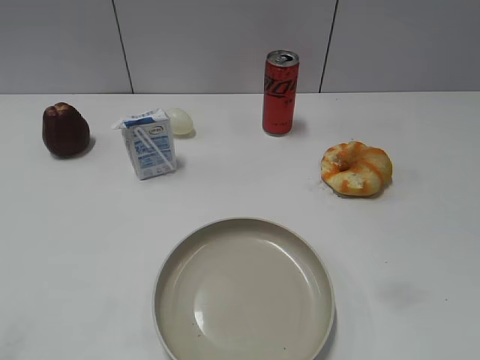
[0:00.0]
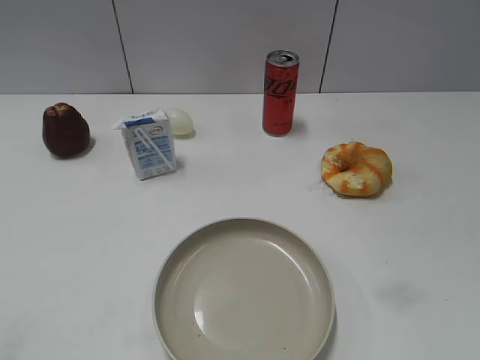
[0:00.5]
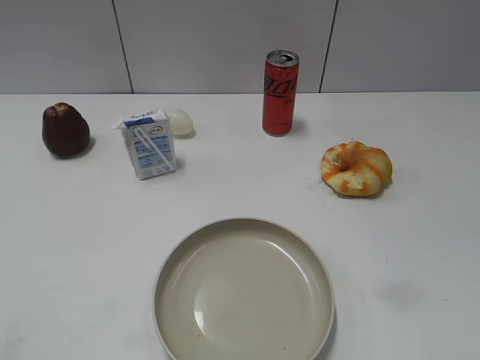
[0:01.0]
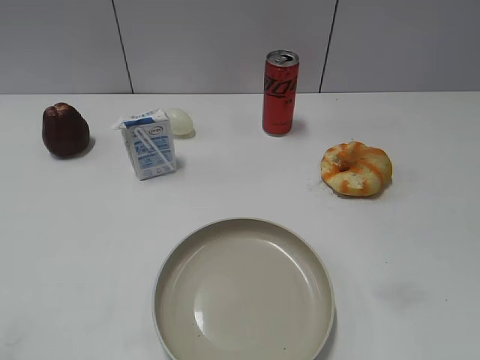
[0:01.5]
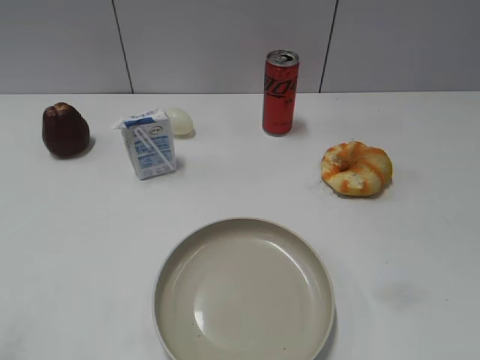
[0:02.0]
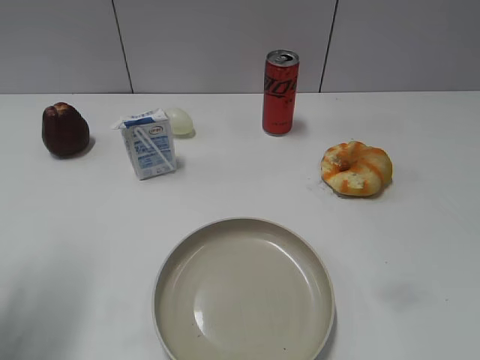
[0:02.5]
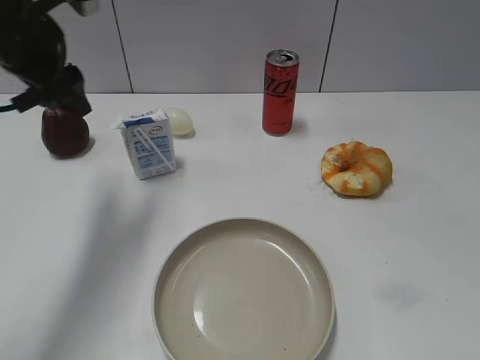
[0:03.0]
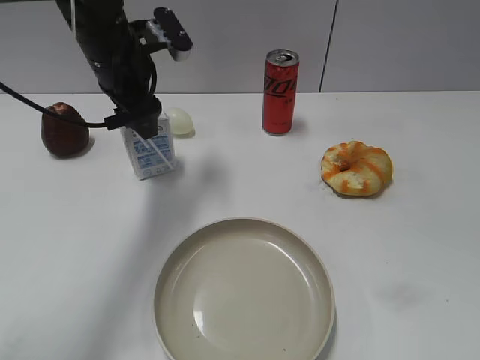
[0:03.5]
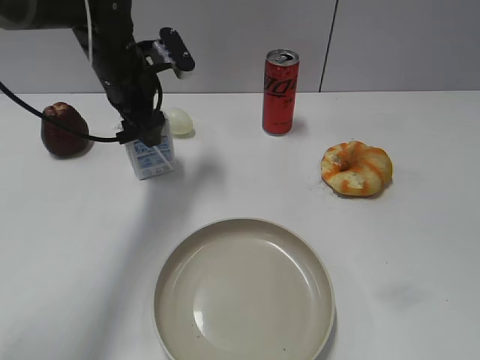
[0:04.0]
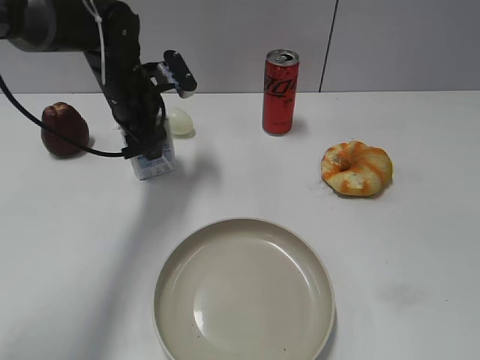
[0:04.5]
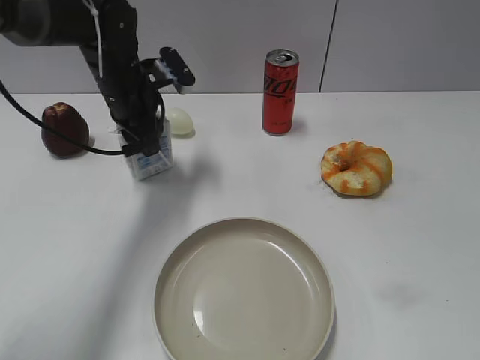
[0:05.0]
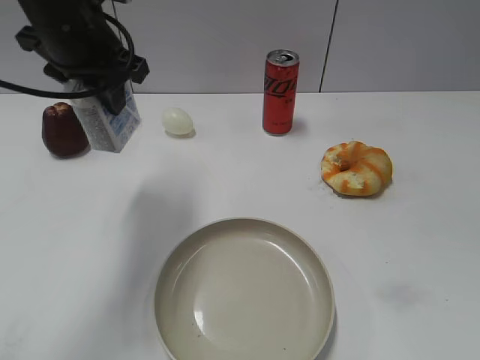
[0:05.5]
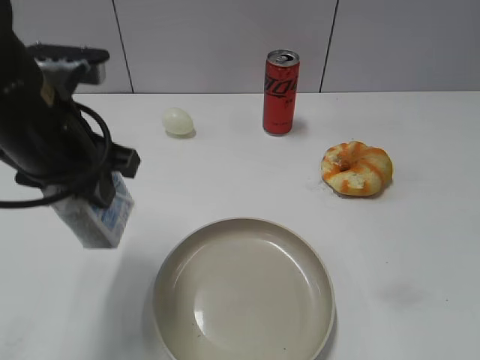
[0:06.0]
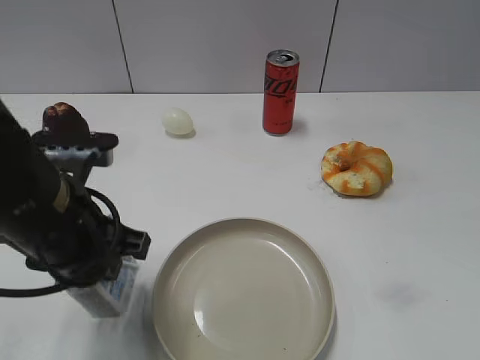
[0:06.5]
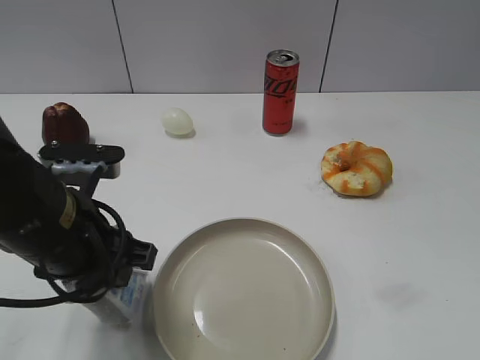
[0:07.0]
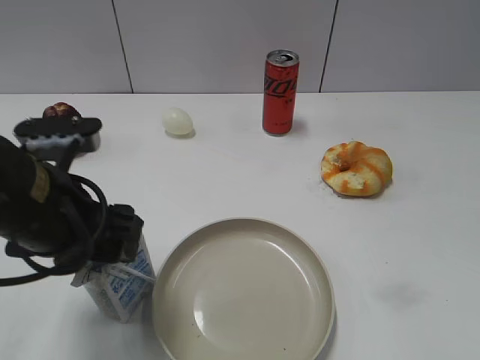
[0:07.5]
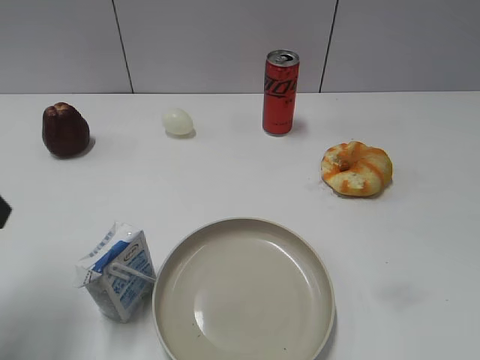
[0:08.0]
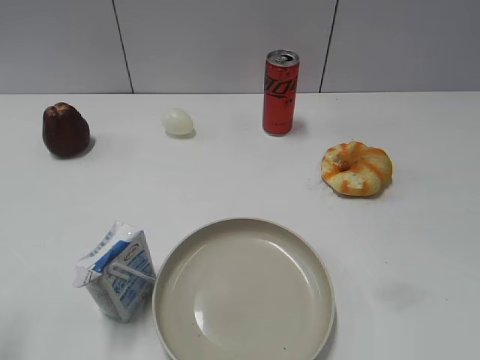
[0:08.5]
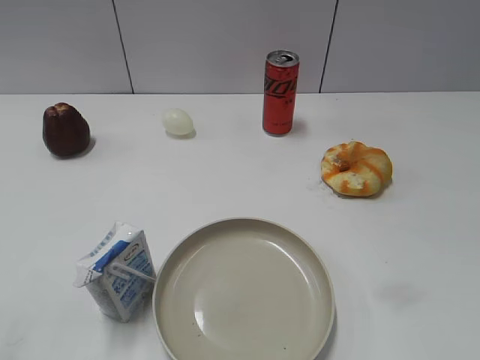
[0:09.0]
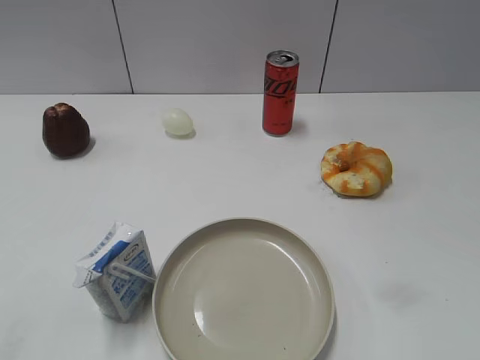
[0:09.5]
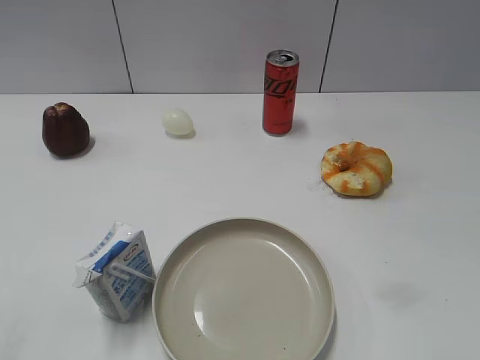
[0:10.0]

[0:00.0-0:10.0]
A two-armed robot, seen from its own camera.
Step, 0:01.0 to 0:04.5: Grasp the milk with left gripper.
Step, 0:05.0 to 0:07.0: Place the milk on the table with left gripper.
0:02.0 to 0:04.0: The left gripper is displaced forward and to the right by some 40 cm.
0:04.0 to 0:06.0: The left gripper travels backward by approximately 15 cm, and closes up.
0:06.0 to 0:08.0: The left gripper travels to the left and backward by approximately 10 cm, and opens up.
0:08.0 to 0:10.0: The left gripper goes some 20 cm backward.

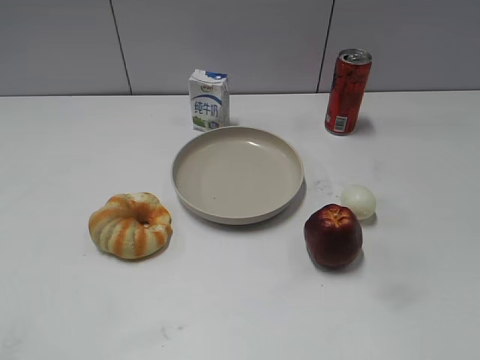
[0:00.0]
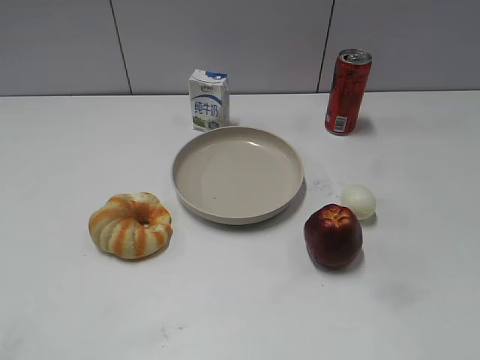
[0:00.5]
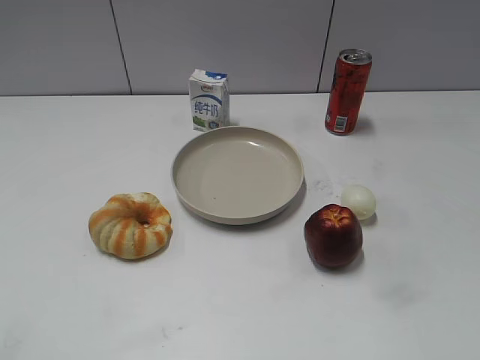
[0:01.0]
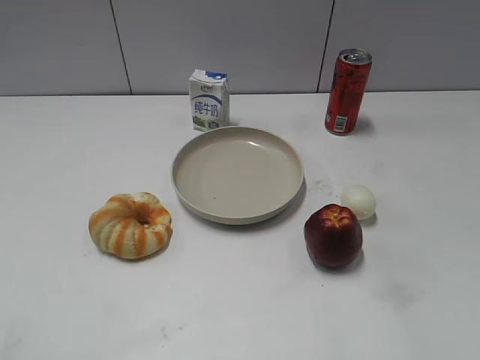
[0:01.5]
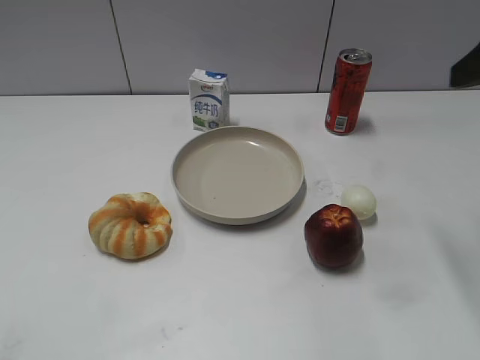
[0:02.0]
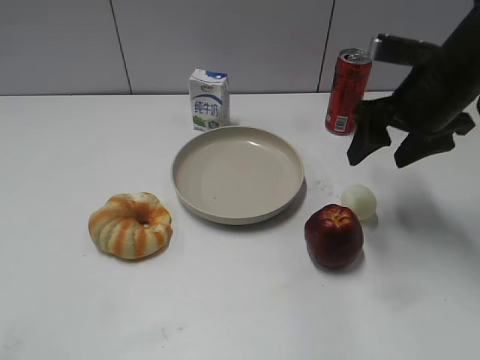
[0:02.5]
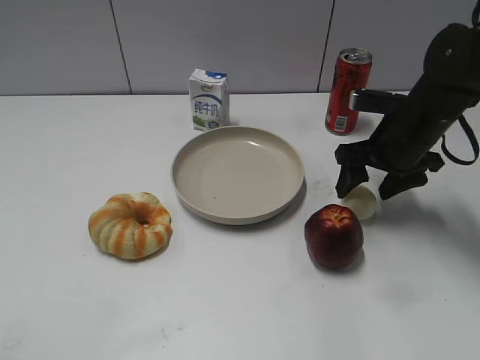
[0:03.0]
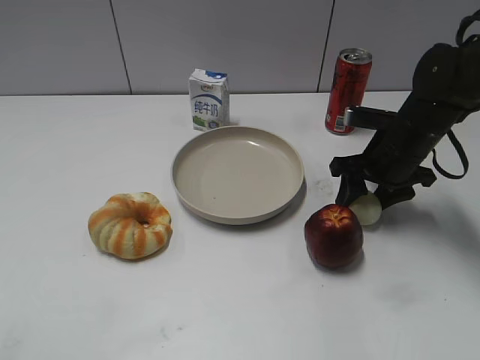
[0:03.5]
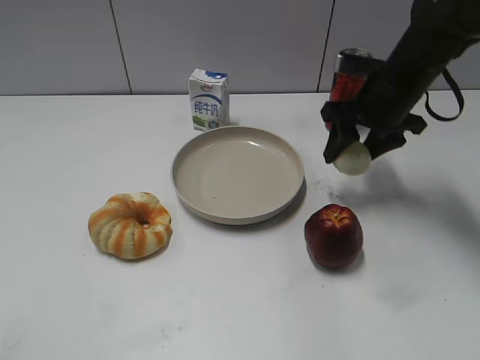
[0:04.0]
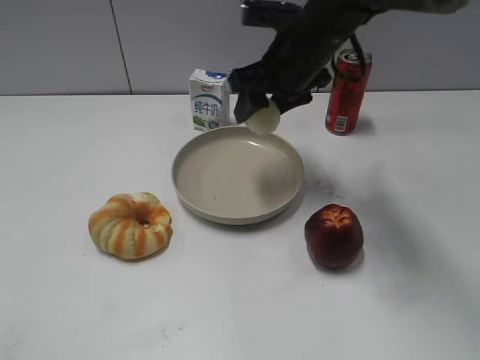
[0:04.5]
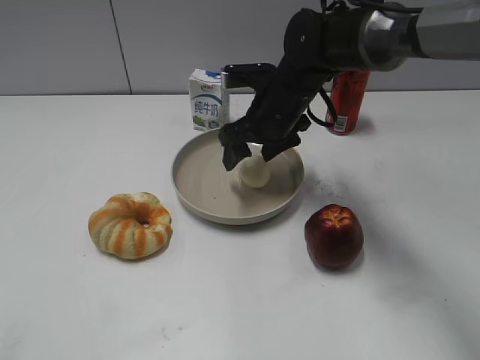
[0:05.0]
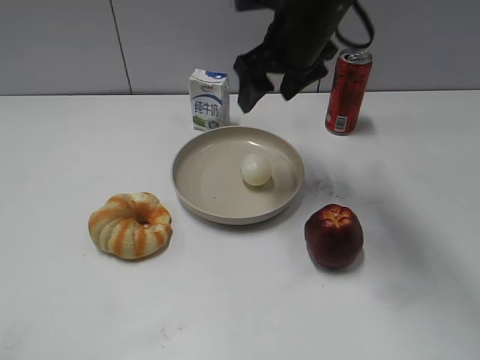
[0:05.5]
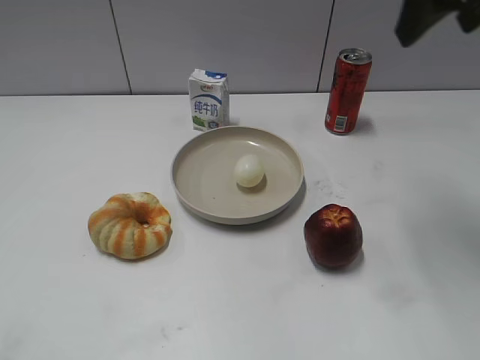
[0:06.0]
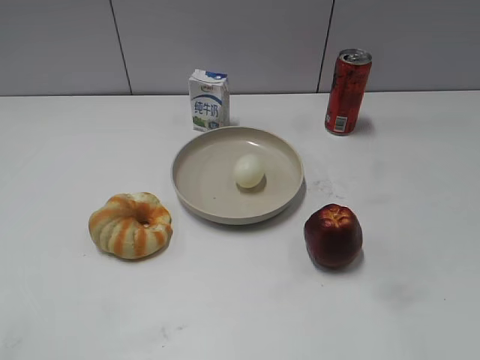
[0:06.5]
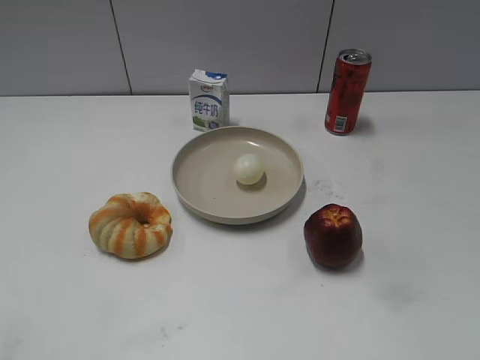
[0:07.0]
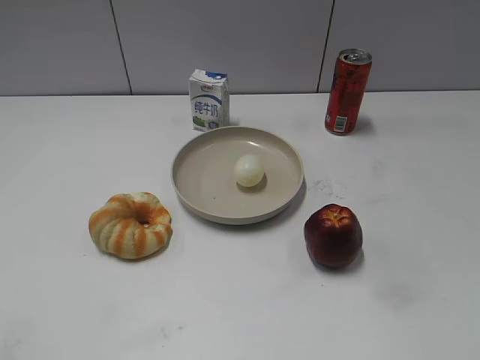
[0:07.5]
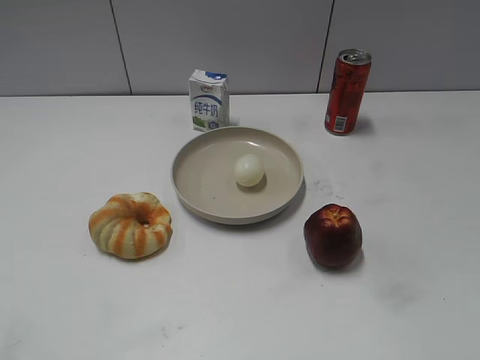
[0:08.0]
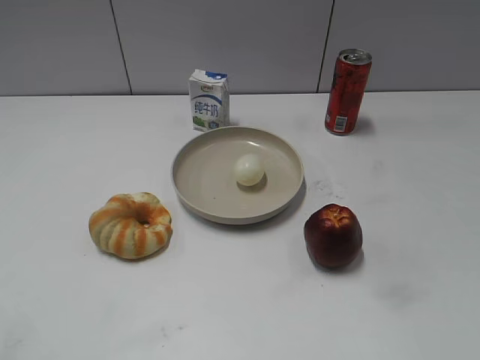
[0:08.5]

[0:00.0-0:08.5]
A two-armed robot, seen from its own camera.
Step, 0:01.0 to 0:03.5: Grasp the egg with right gripper.
Step, 0:04.0 to 0:05.0: Place the egg on the plate with right gripper.
0:02.0 to 0:04.0: The right gripper shifts roughly 20 cm forward, downward and to the left, and closes up.
0:04.0 to 0:06.5: The right gripper is displaced backward and upward by approximately 30 cm, and opens its fingers.
